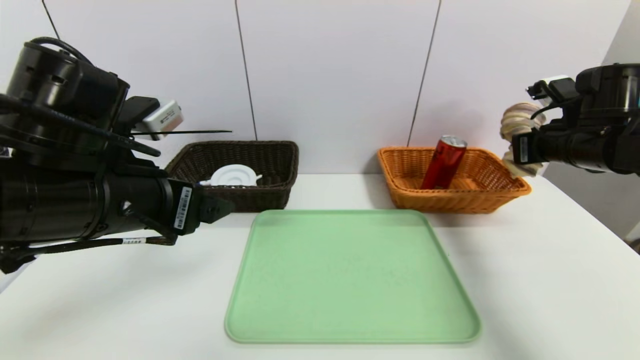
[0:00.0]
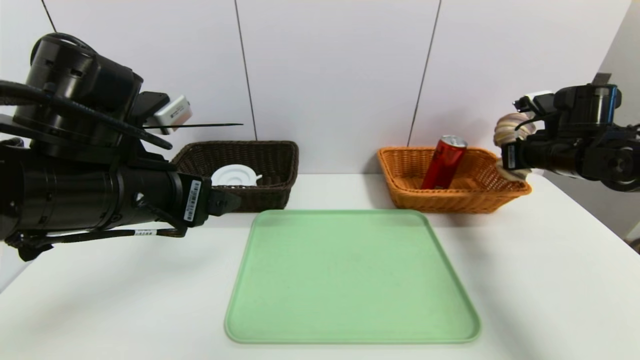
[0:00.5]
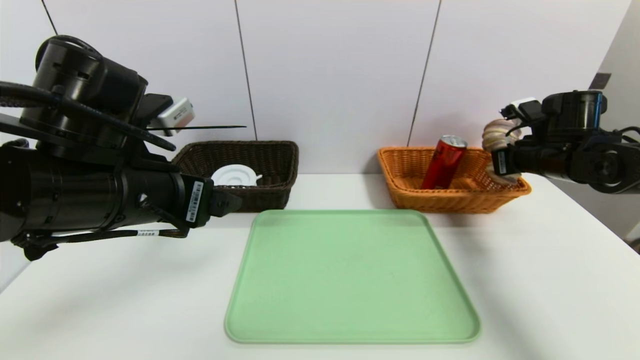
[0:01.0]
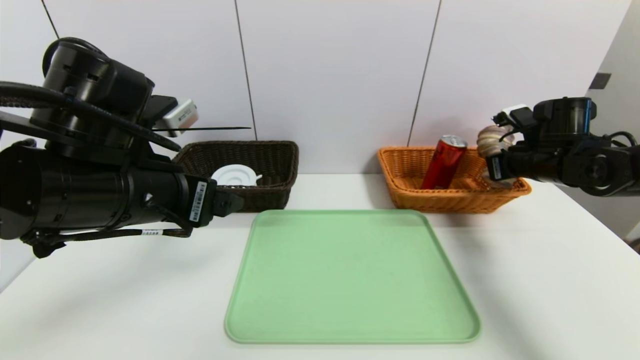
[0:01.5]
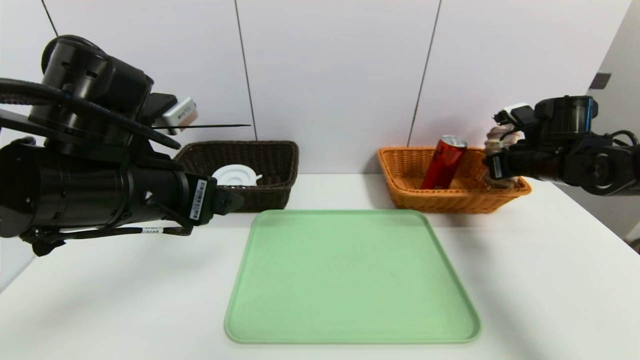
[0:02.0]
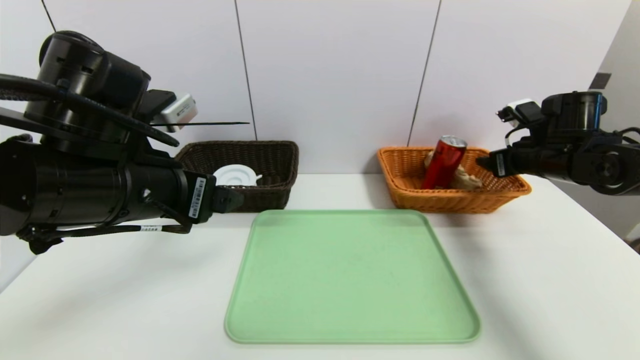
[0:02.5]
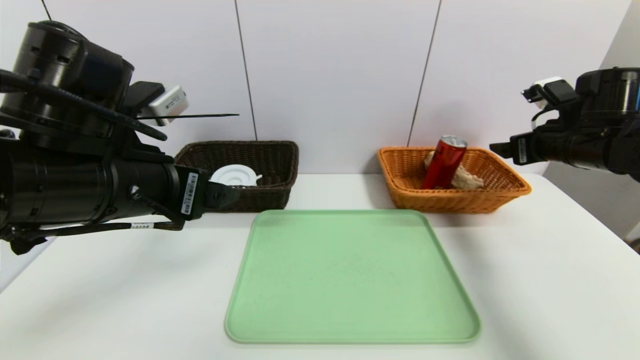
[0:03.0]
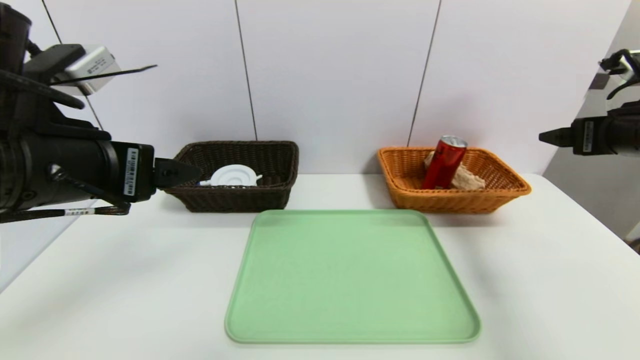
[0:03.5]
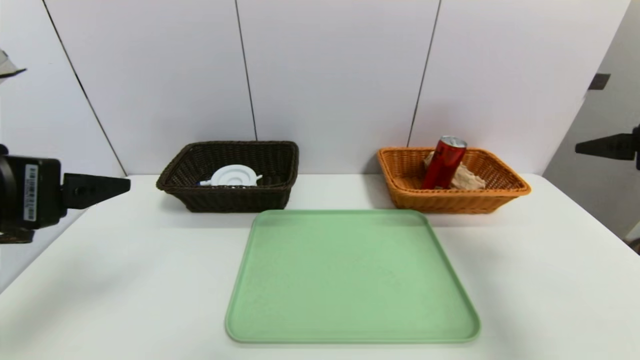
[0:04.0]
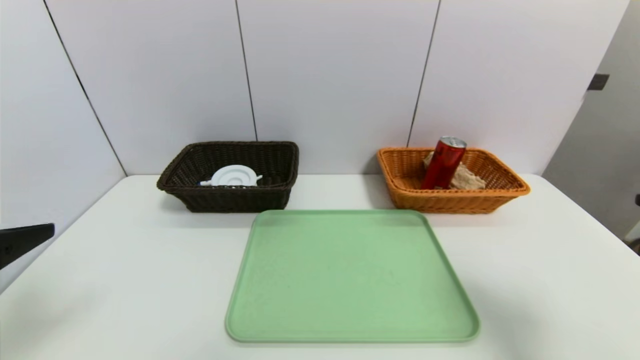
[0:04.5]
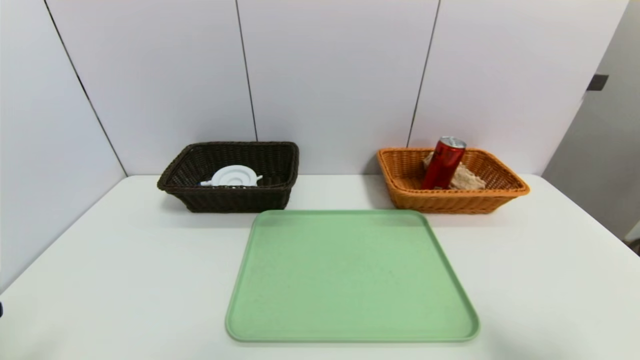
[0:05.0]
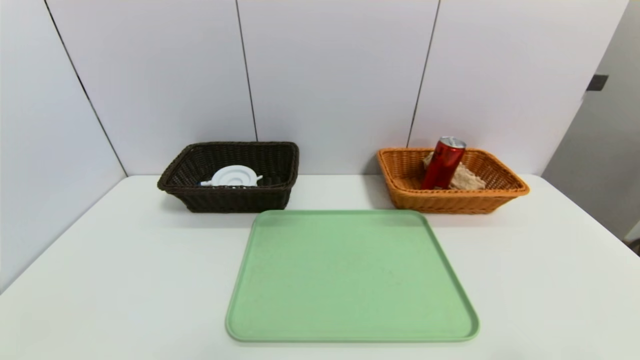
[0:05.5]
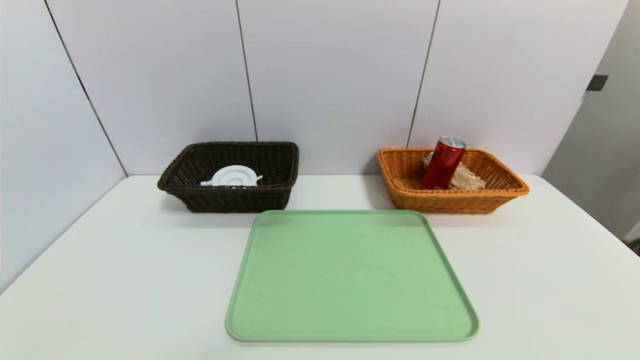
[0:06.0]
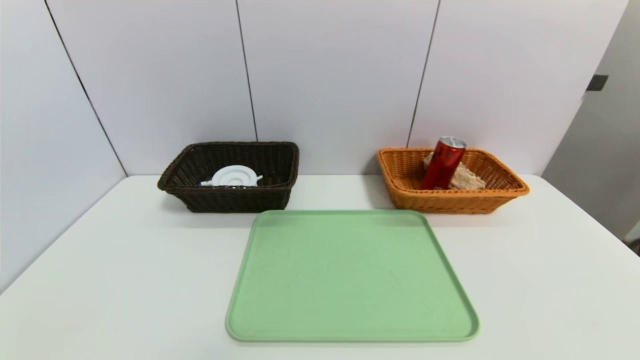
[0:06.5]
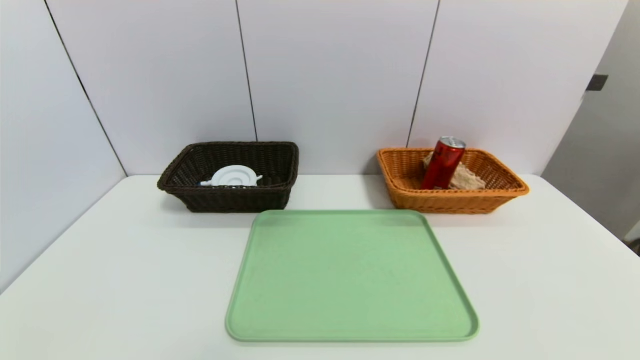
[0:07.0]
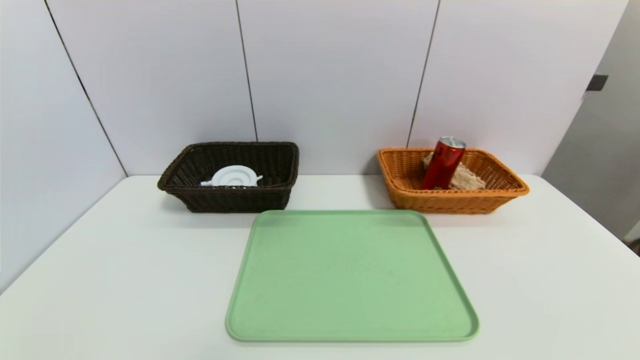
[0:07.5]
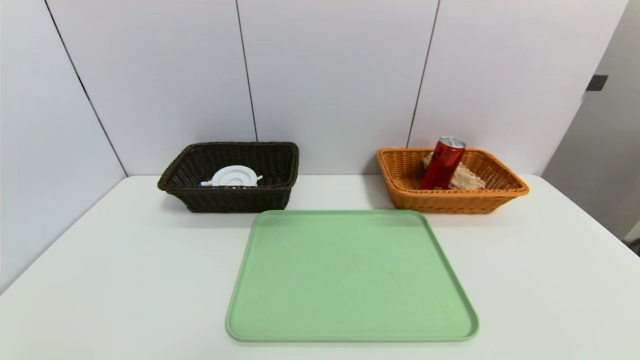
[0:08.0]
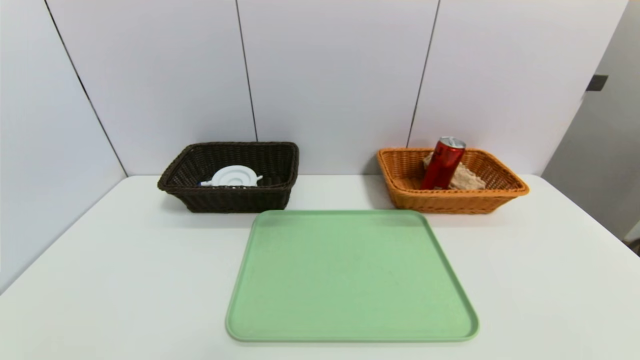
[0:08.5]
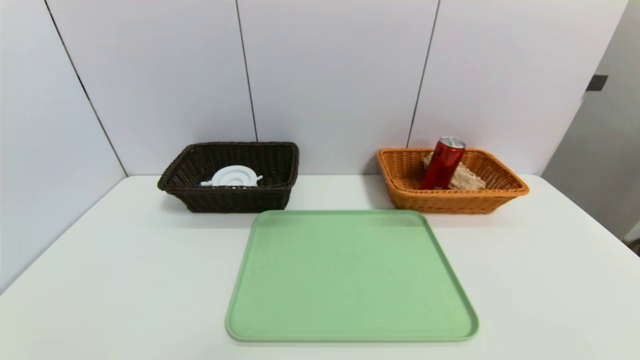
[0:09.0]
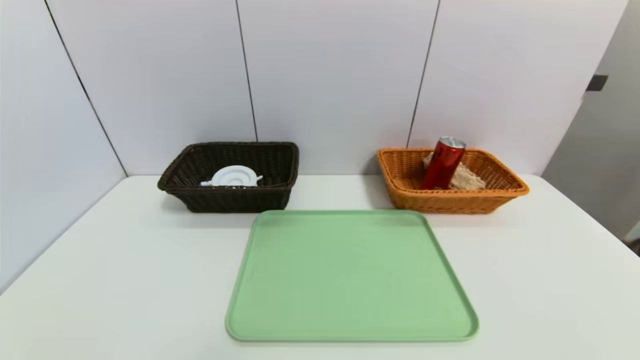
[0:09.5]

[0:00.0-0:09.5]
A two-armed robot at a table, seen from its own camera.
Task of the whole recording: place the food in the right basket with the right gripper, and place the non food items in the left basket with the left gripper.
Step, 0:00.0 to 0:02.5: Grasp the long bread and put it in the right basket.
0:00.0 to 0:02.0: The right gripper moves some 5 cm, and opens.
0:02.0 to 0:04.0: The left gripper travels backward and to the left by approximately 10 cm. The right gripper moves backward and upward, roughly 25 cm, and opens its fingers.
0:04.0 to 0:05.5: The left gripper travels downward and backward by roughly 20 cm, while the right gripper travels backward and downward by roughly 20 cm.

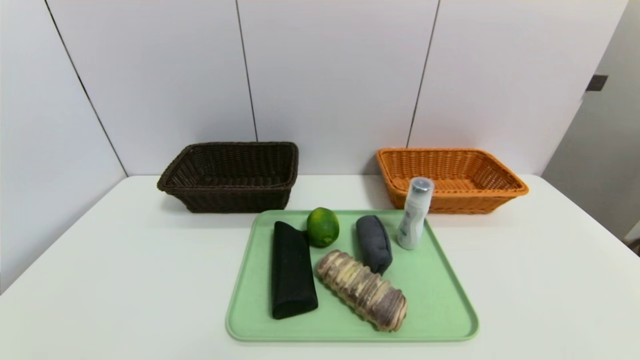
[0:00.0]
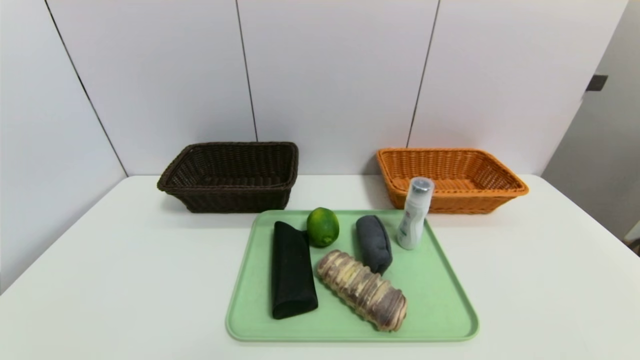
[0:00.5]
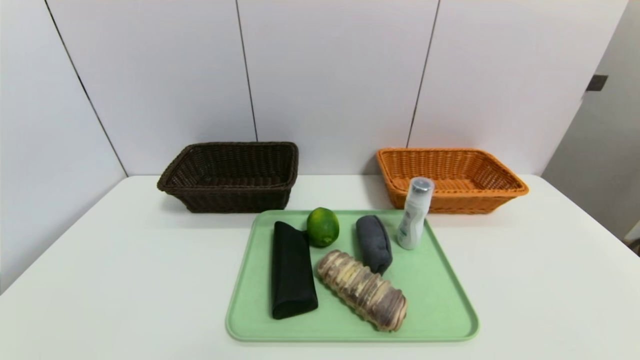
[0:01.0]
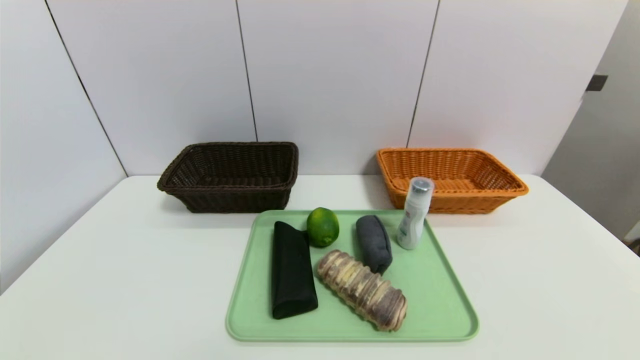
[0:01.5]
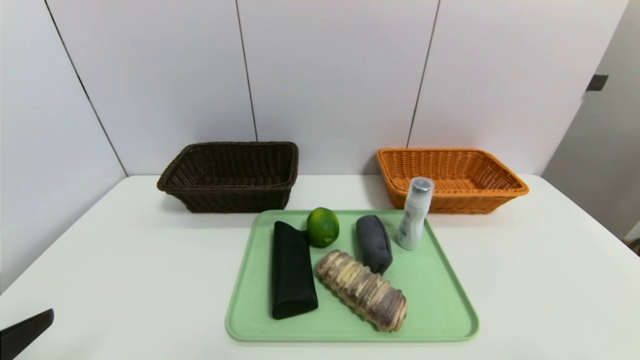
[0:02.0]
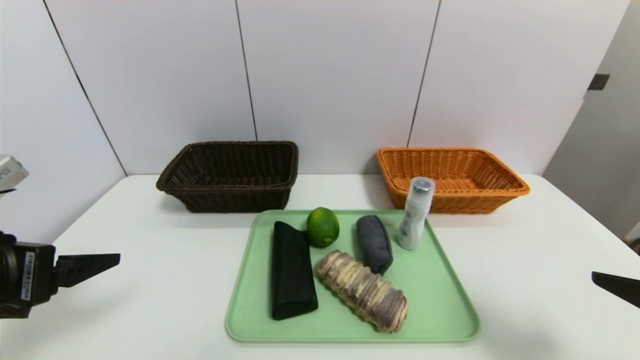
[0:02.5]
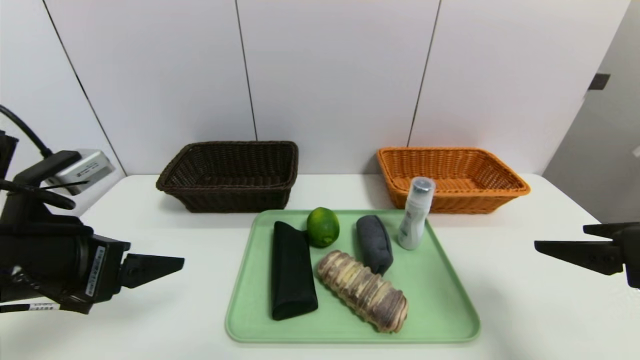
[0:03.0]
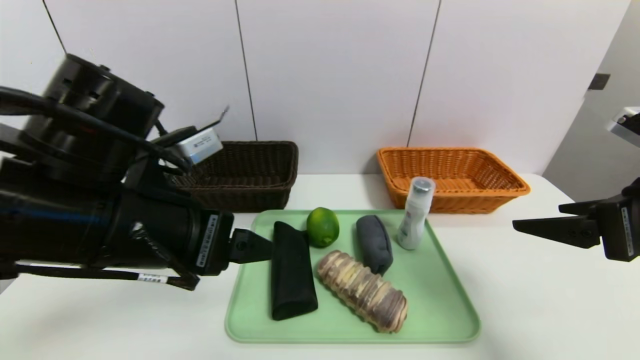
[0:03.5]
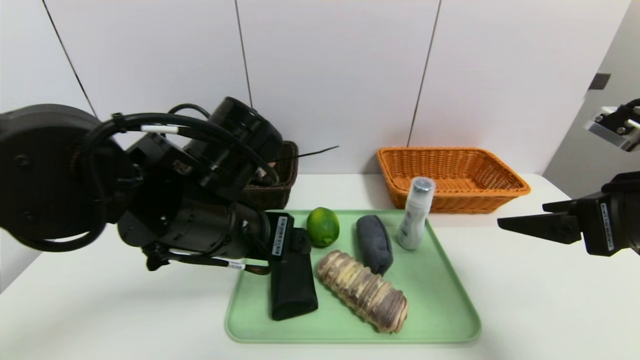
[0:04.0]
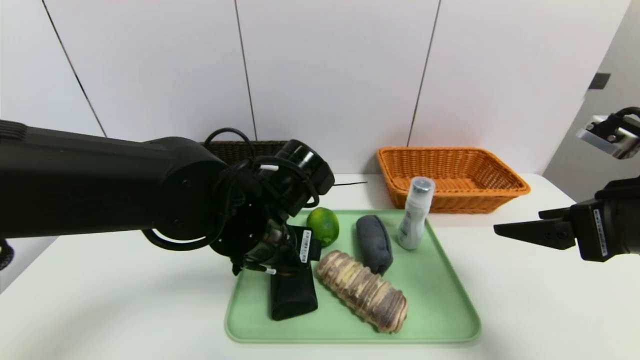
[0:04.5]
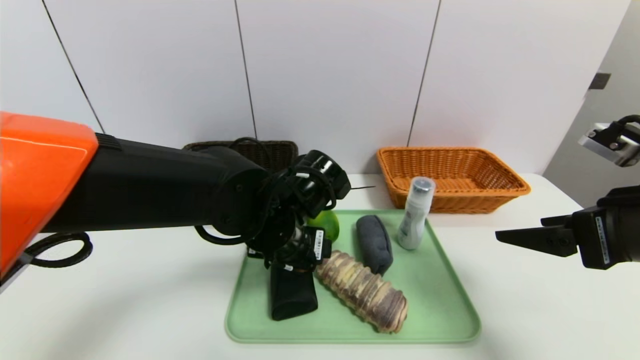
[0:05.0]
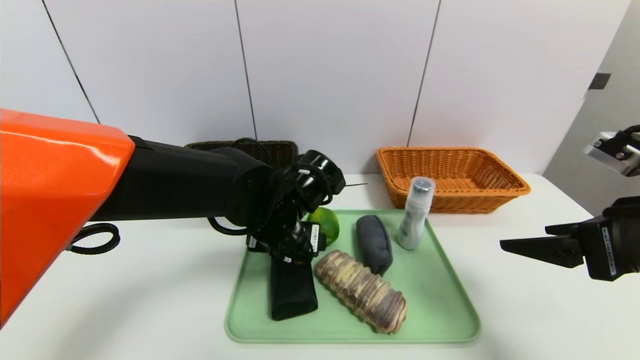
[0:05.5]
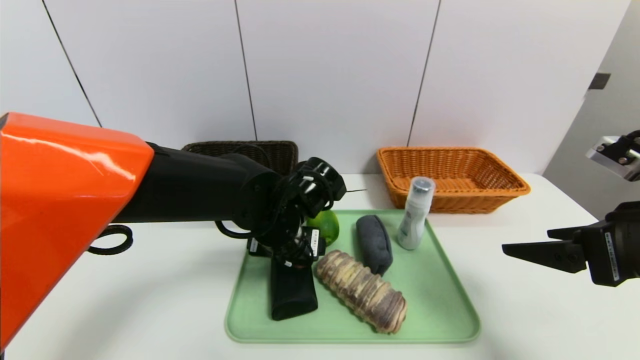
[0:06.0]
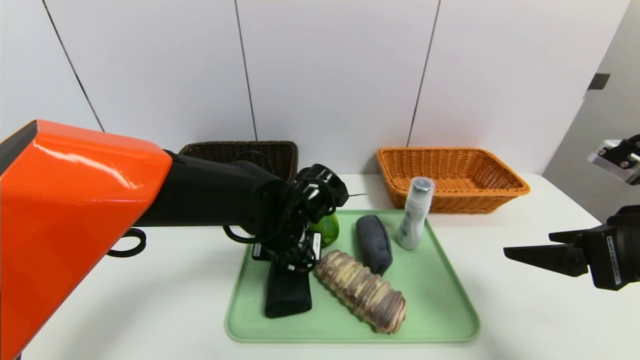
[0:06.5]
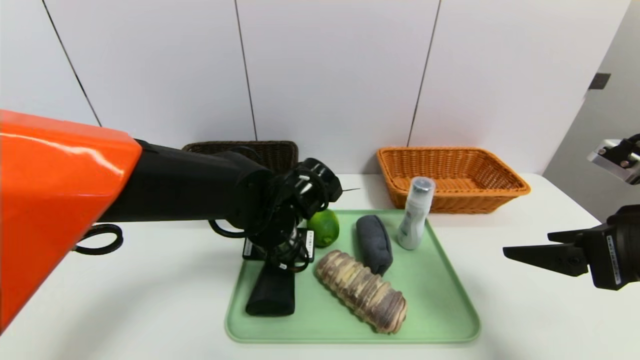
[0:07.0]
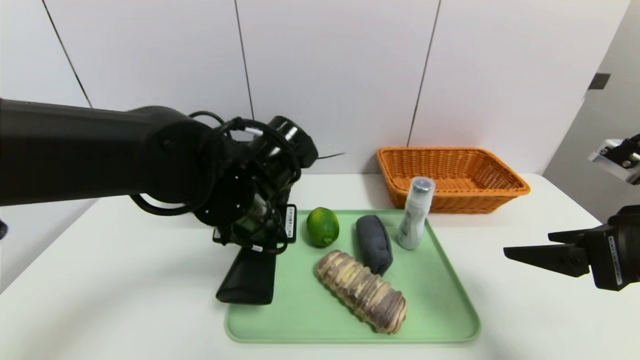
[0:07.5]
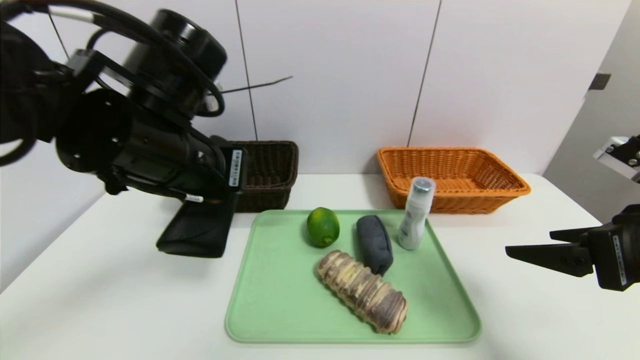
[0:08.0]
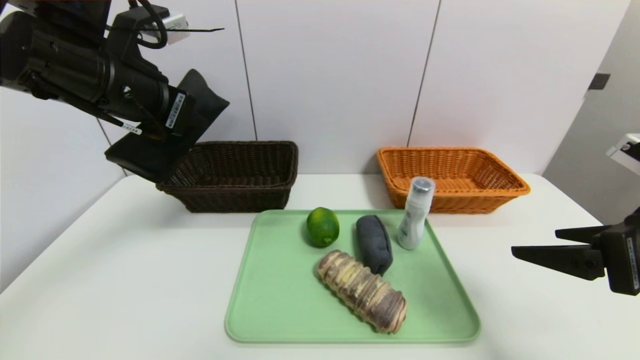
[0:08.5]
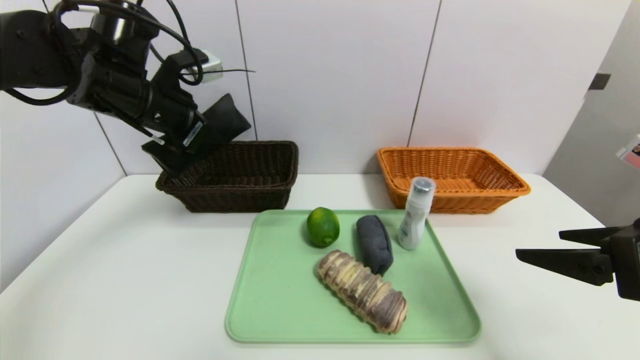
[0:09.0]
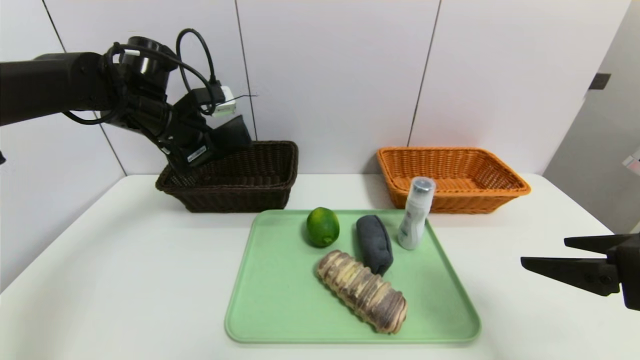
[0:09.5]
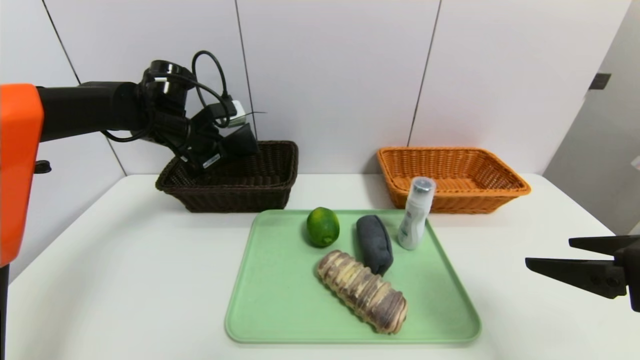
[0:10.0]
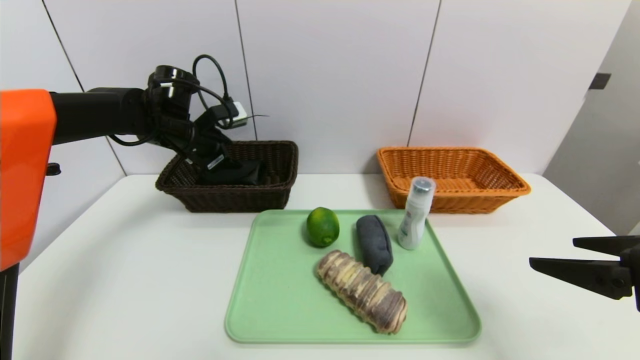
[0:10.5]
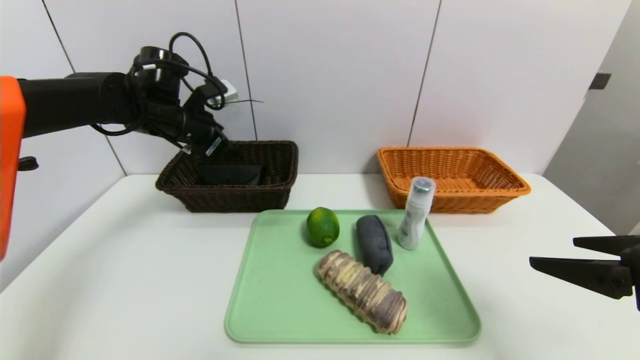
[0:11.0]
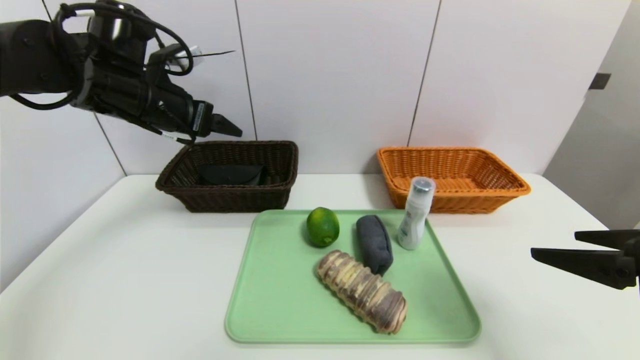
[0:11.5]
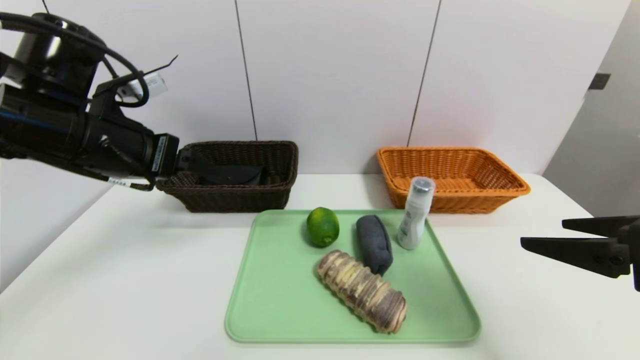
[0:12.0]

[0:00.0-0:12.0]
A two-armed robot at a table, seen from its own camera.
Task of the whole recording: place the food in the right basket with the right gripper, and place the non food items in the left basket with the left gripper.
Step, 0:00.0 to 0:11.0: Grasp the glasses case and put it in the left basket.
0:00.0 to 0:02.0: The left gripper is displaced upward by about 15 cm.
0:02.0 to 0:04.0: The right gripper heads forward and upward, covering approximately 20 cm. The left gripper travels to the right and forward by some 25 cm.
0:04.0 to 0:06.0: The left gripper shifts some 10 cm downward, forward and to the right.
0:06.0 to 0:08.0: The left gripper moves upward and to the left, some 20 cm, and closes its fingers.
0:08.0 to 0:10.0: The left gripper goes roughly 20 cm forward and to the left.
0:10.0 to 0:12.0: The left gripper moves backward, approximately 15 cm, and opens up.
